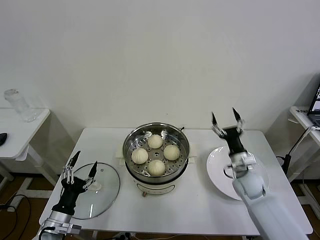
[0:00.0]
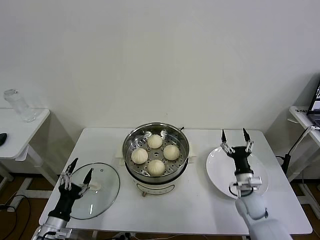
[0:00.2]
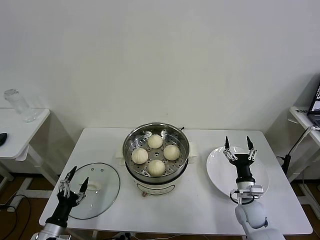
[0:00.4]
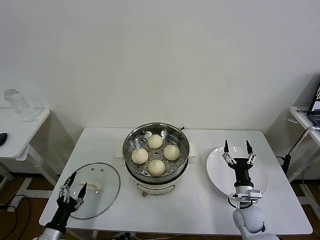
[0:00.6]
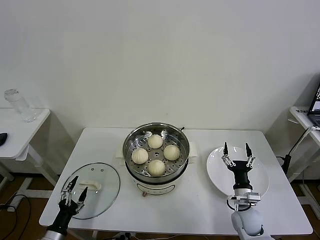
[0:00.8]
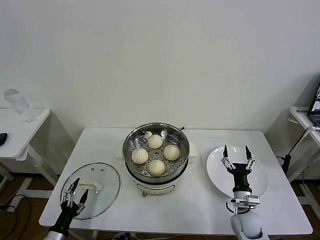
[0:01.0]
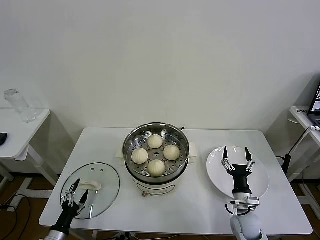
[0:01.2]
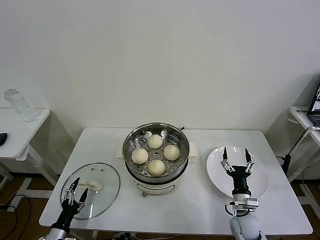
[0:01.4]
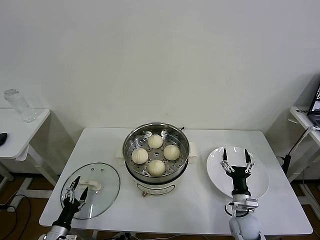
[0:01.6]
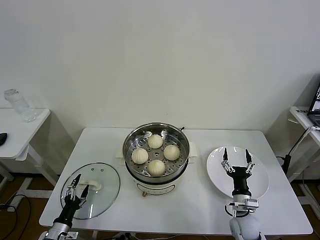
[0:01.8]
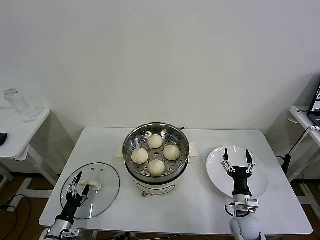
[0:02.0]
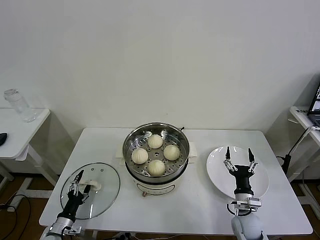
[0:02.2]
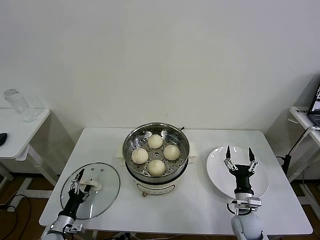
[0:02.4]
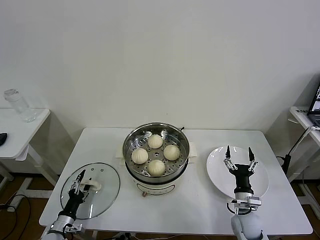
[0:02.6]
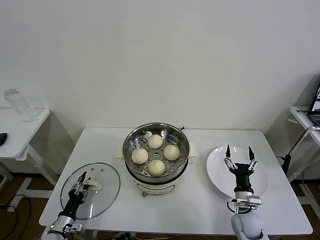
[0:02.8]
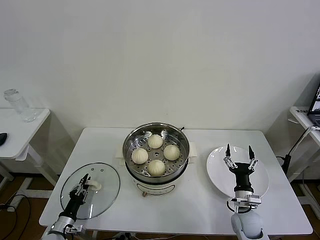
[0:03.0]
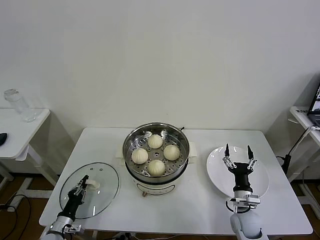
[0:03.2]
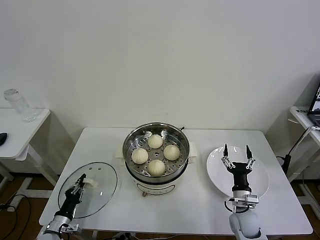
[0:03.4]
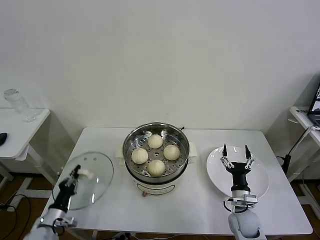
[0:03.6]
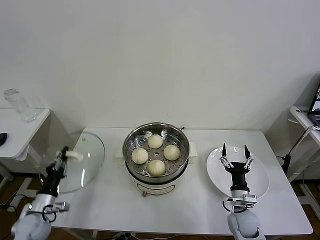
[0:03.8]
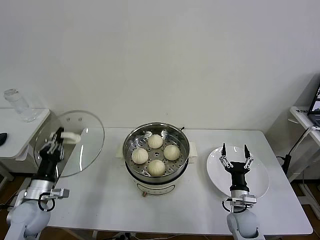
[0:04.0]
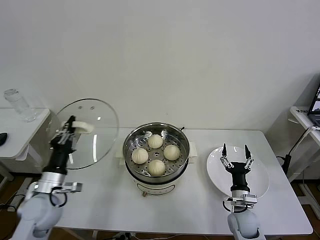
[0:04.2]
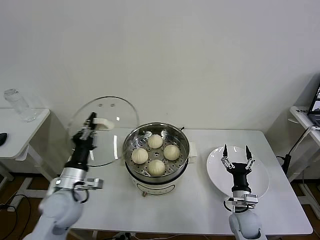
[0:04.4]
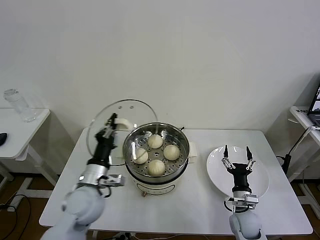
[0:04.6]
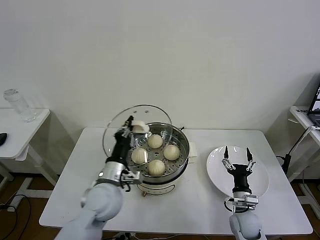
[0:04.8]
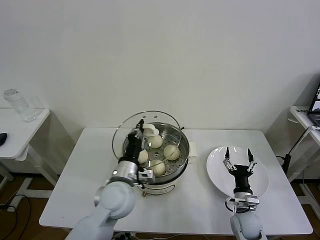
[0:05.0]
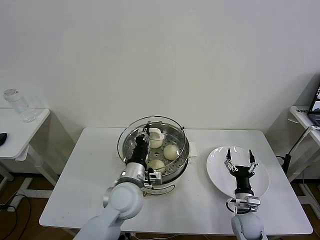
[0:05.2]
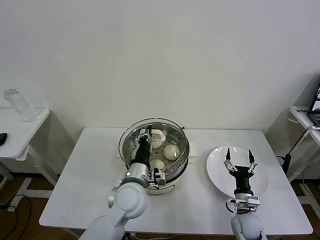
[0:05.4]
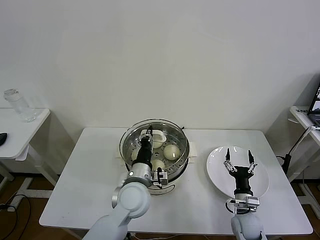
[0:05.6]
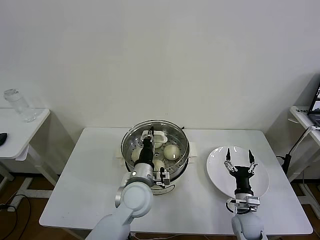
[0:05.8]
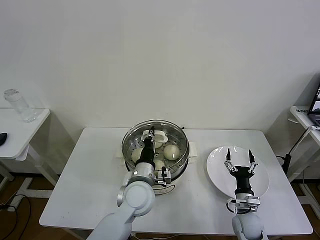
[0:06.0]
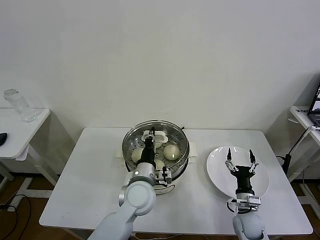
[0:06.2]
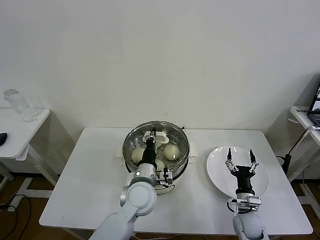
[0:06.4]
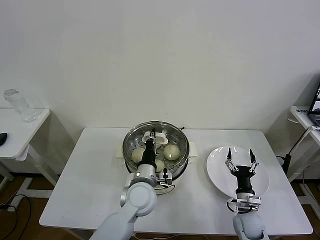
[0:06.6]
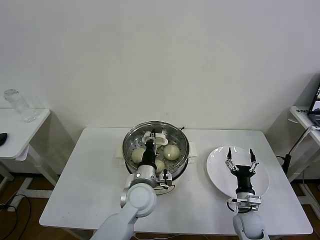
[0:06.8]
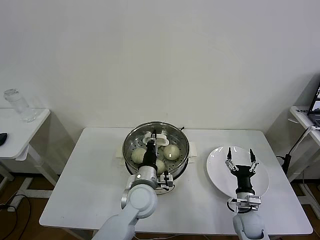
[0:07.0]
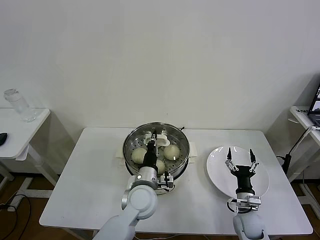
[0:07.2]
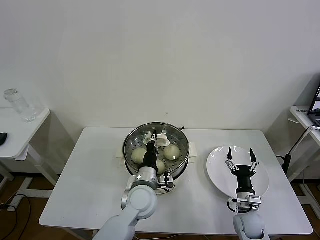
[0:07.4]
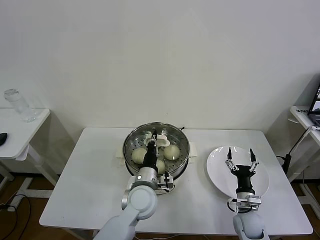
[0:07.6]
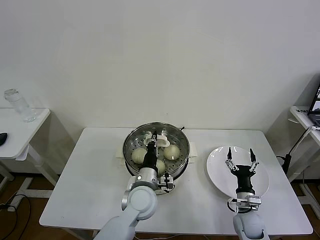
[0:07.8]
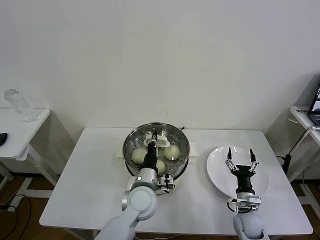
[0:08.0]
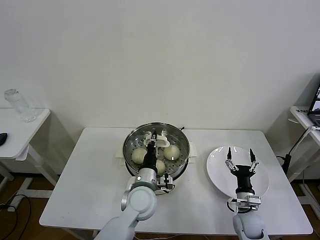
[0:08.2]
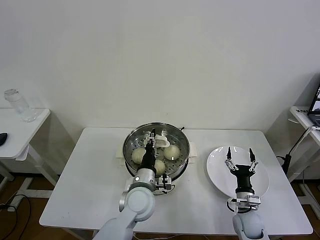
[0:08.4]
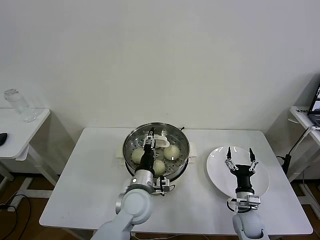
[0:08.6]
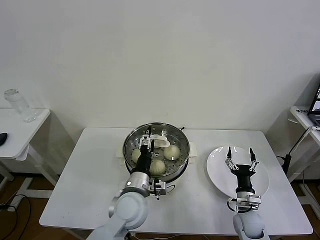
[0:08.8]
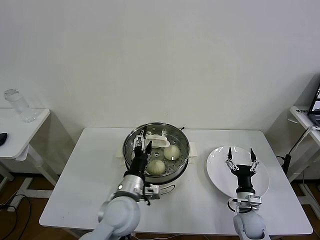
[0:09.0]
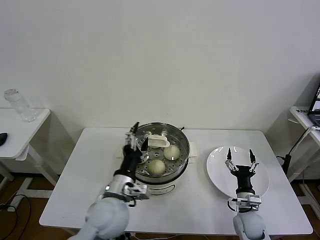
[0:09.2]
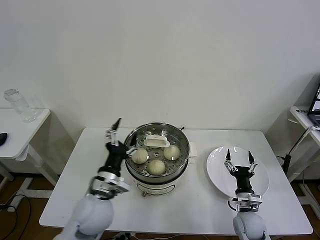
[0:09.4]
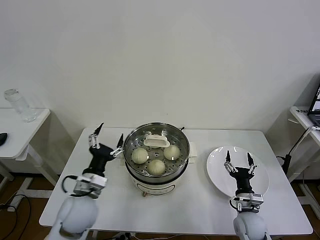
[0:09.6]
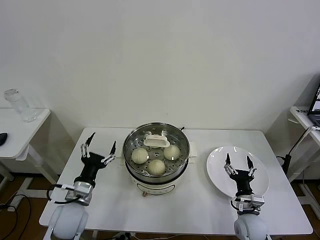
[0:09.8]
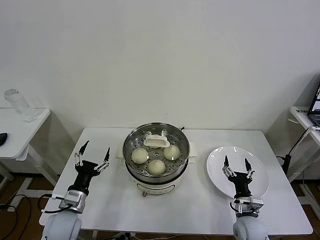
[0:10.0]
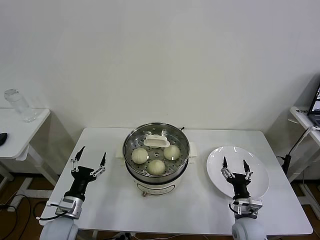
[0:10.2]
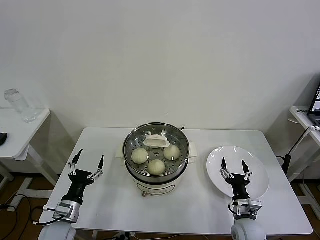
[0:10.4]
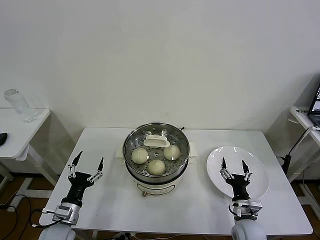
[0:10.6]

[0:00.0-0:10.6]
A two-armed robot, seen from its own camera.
Task of the whole recording: take steamed baozi put them in steamer then cover it.
Step, 0:00.0 to 0:03.2: Grasp the pot lid with left gripper.
Step, 0:03.6 to 0:08.4: Place the pot lid on the steamer with left gripper.
0:00.0 to 0:01.6: The left gripper is displaced downward and to the left by approximately 15 cm; the right gripper goes roughly 15 cm backward and downward.
0:01.6 to 0:03.0: The left gripper closes its fingers.
0:03.0 to 0:04.6: The left gripper heads upward and to the right, covering approximately 30 cm, and closes up.
0:04.6 to 0:06.0: The left gripper moves to the right, roughly 15 cm.
0:06.0 to 0:07.6: The grippers make only small movements.
0:07.6 to 0:09.0: The left gripper moves some 5 cm, and opens up.
0:09.0 to 0:10.6: The left gripper is displaced to the left and downward by approximately 25 cm.

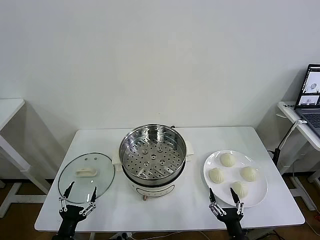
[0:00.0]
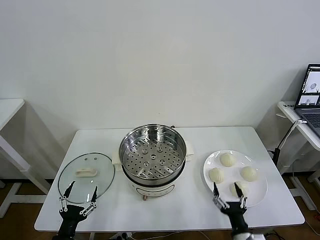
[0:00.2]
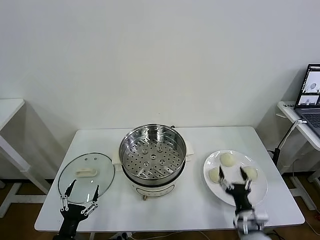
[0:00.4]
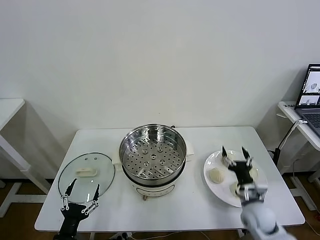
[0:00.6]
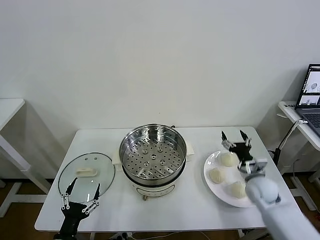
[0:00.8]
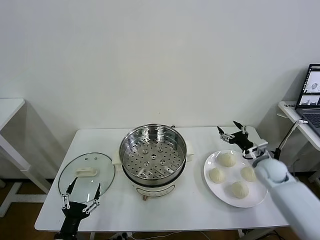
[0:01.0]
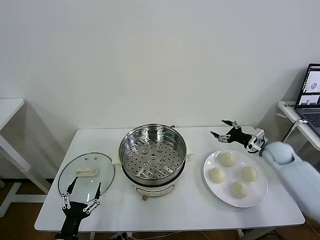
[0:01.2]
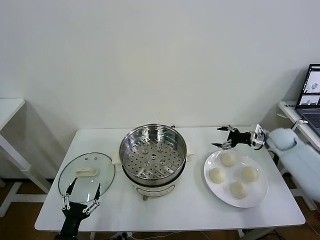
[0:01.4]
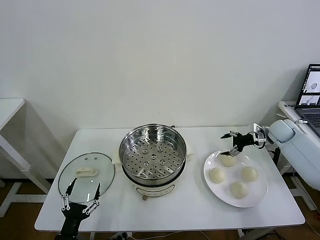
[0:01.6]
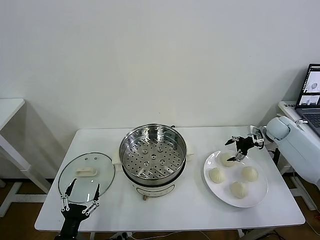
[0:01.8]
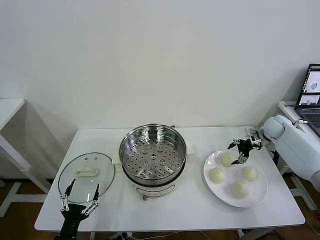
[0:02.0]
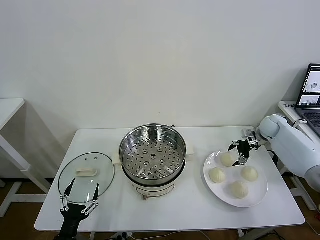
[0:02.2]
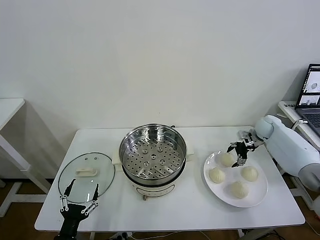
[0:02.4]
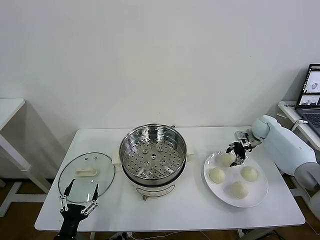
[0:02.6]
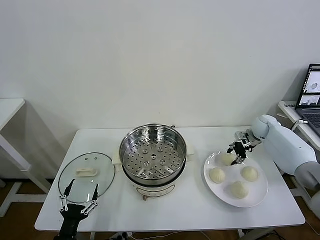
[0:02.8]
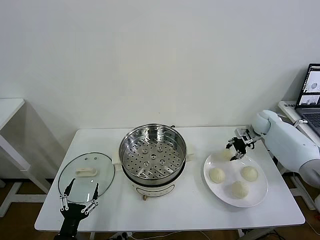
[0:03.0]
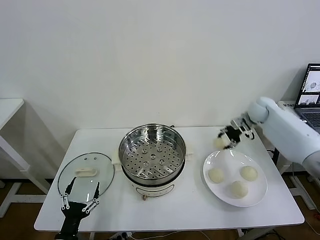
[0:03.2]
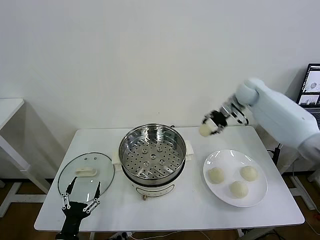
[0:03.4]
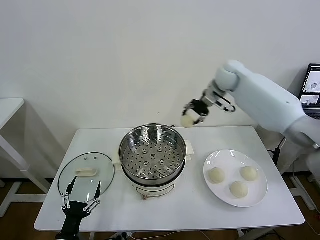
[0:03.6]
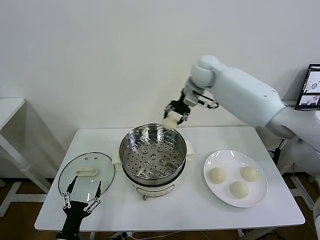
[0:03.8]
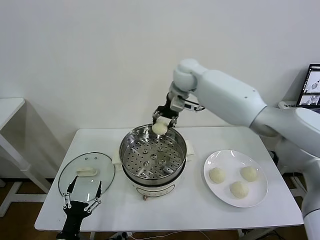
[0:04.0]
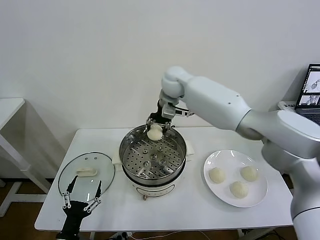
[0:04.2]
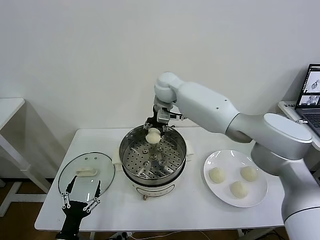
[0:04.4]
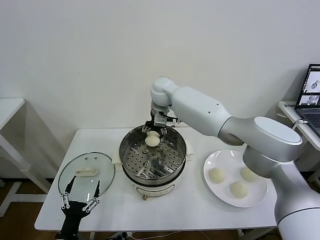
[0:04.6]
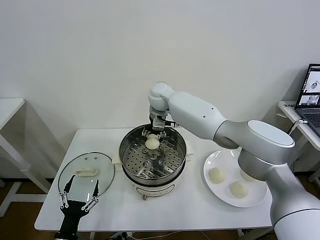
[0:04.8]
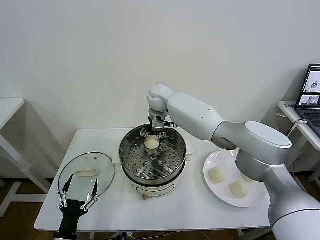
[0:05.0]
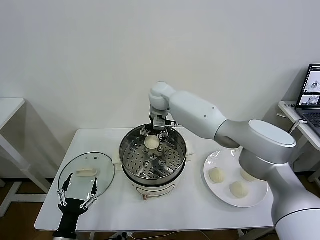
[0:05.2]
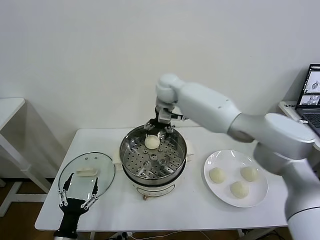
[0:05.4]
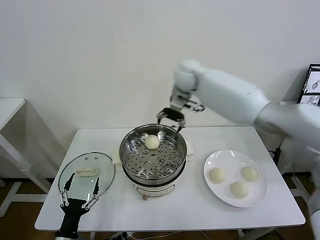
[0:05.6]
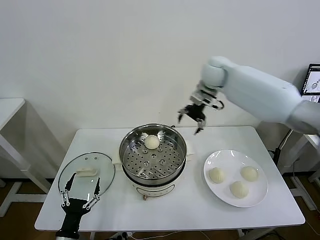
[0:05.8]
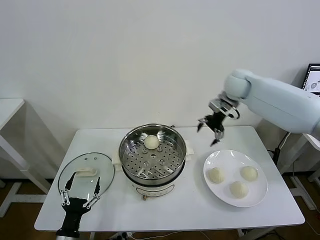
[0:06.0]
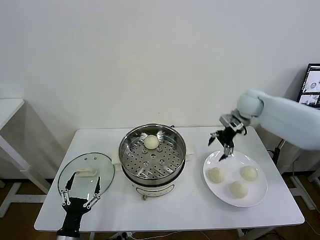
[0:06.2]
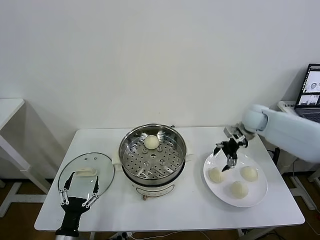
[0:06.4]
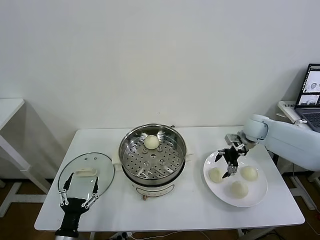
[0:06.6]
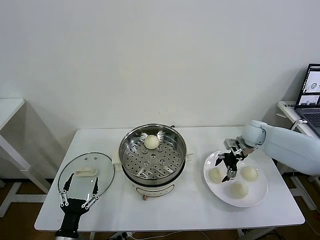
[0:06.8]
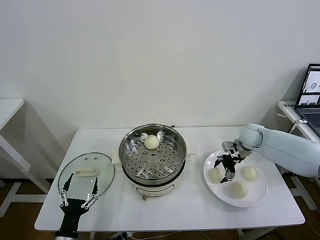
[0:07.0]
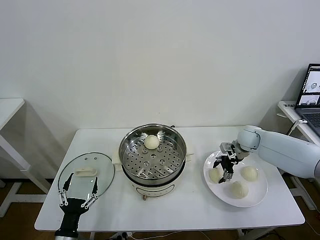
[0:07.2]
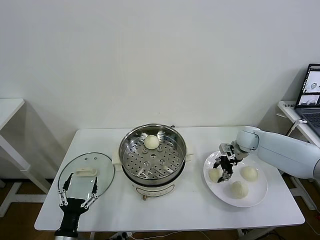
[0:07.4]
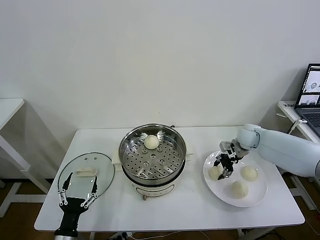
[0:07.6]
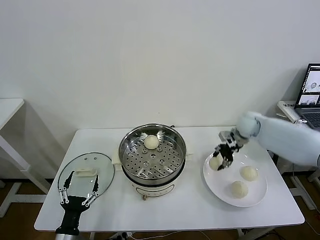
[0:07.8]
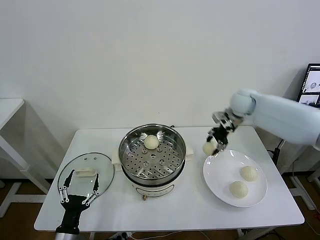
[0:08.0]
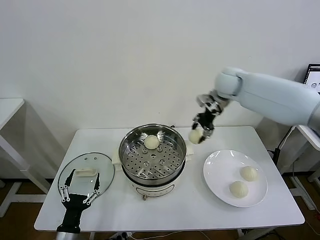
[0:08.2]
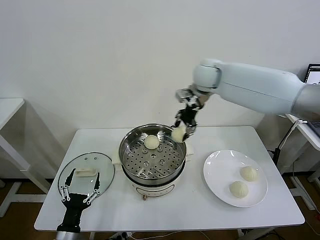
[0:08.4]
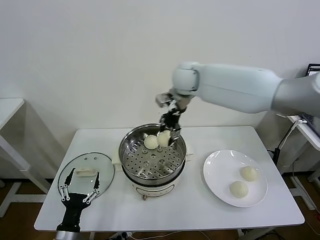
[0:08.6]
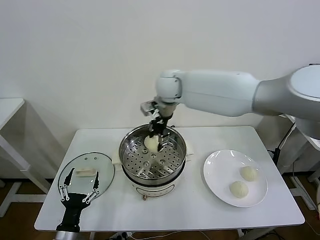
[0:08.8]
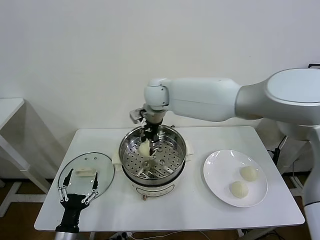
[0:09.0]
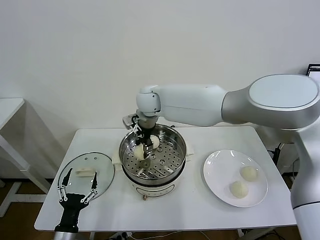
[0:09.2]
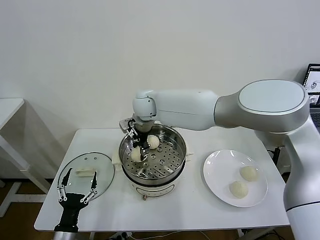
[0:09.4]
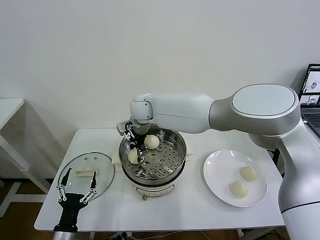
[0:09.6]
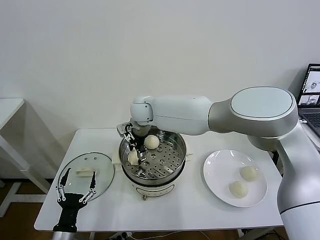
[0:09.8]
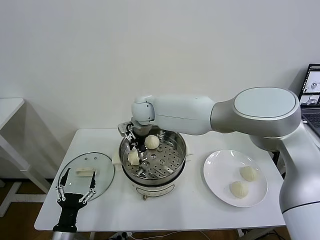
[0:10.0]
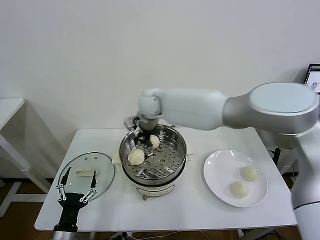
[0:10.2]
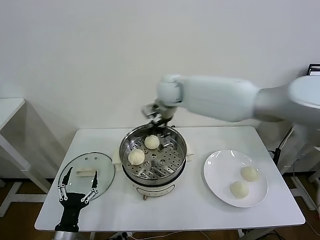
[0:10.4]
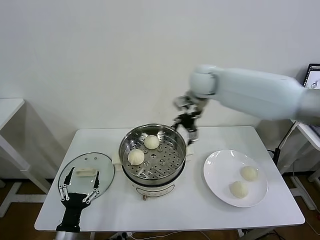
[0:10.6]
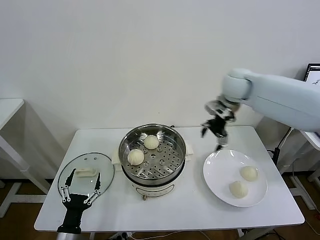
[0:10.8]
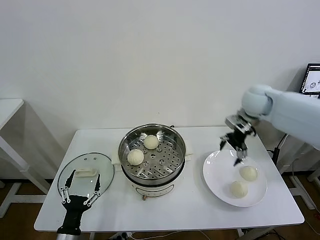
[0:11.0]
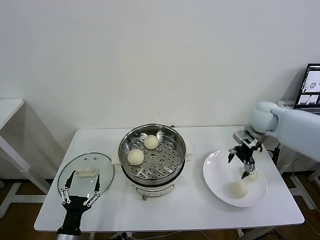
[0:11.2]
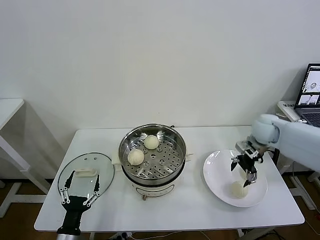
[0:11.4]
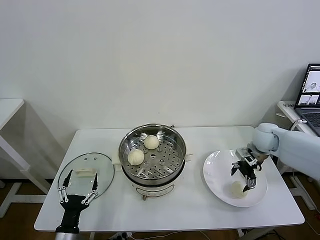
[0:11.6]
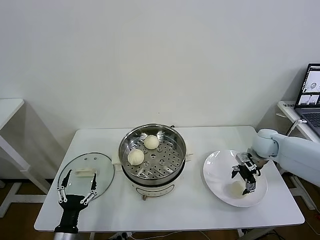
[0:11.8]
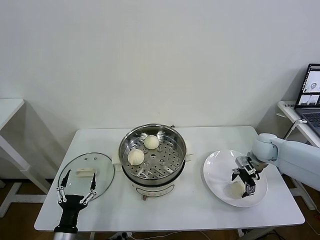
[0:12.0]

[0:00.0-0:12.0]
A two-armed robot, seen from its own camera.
Task of the whole recording: take steamed baozi put them in steamer then cover it.
Step, 0:00.0 to 0:02.6: Grasp the baozi in the plate with right gripper.
Step, 0:02.8 to 0:05.0: Place the baozi on the steamer with right gripper.
Step, 0:05.4 to 0:07.2: Grasp the baozi in the plate with right gripper.
Step, 0:07.6 to 0:09.8: Place the baozi on the steamer with right gripper.
0:01.6 to 0:03.0: The right gripper shifts roughly 5 cm to the left, and closes its fingers.
0:03.0 to 0:04.4: The right gripper travels to the left by approximately 40 cm.
0:04.4 to 0:06.0: The right gripper shifts about 30 cm to the right, and opens.
0:06.0 to 0:07.6: The right gripper moves downward, about 15 cm, and closes up.
0:07.6 to 0:09.0: The right gripper heads to the left and upward, covering about 40 cm.
0:09.0 to 0:10.4: The right gripper travels to the right by about 10 cm, and opens.
0:10.4 to 0:12.0: The right gripper shifts approximately 40 cm to the right and downward.
